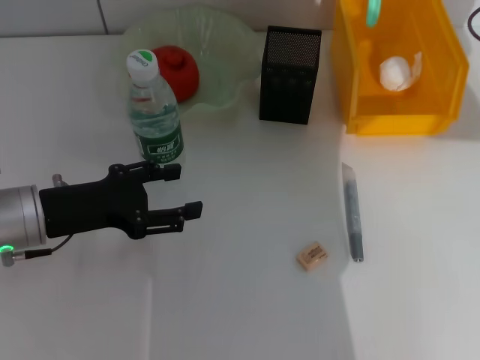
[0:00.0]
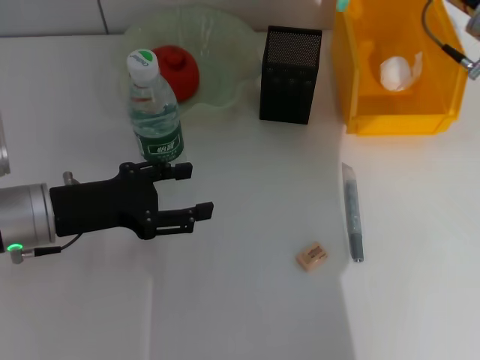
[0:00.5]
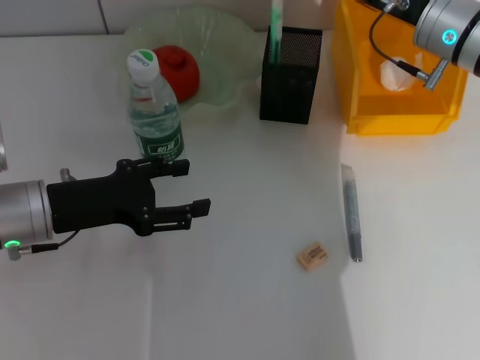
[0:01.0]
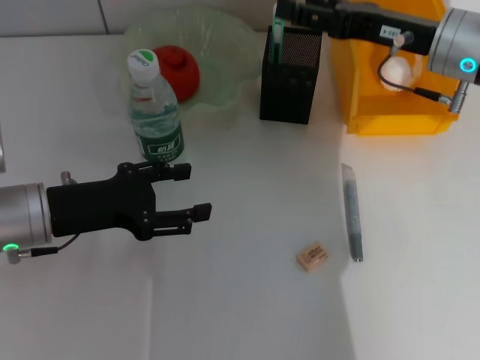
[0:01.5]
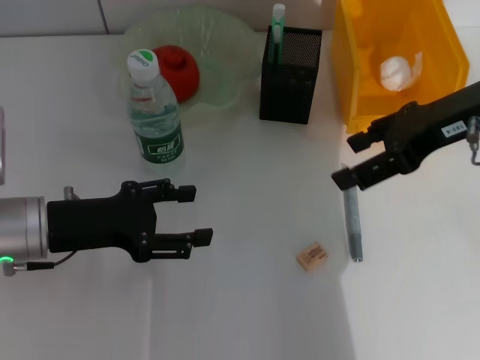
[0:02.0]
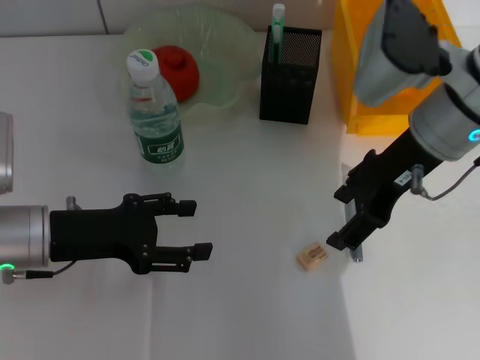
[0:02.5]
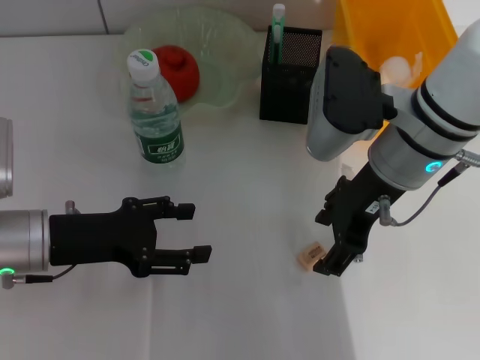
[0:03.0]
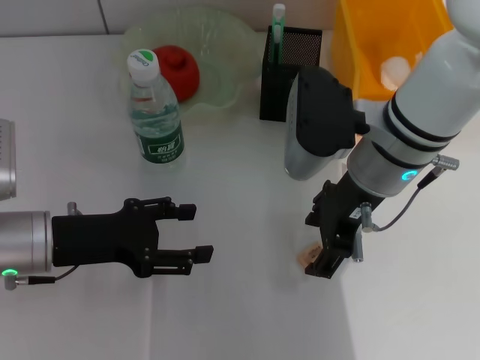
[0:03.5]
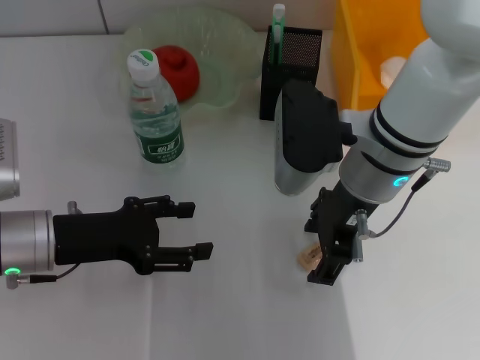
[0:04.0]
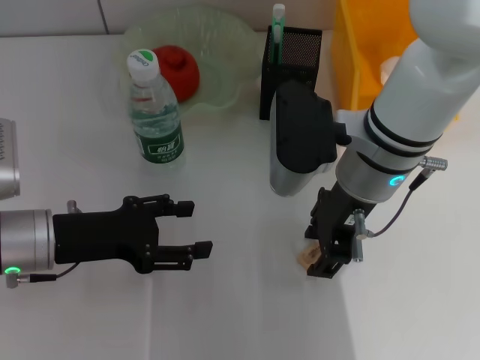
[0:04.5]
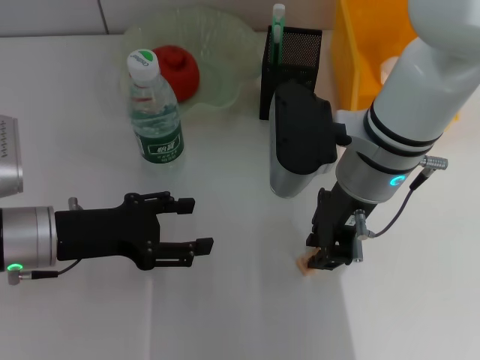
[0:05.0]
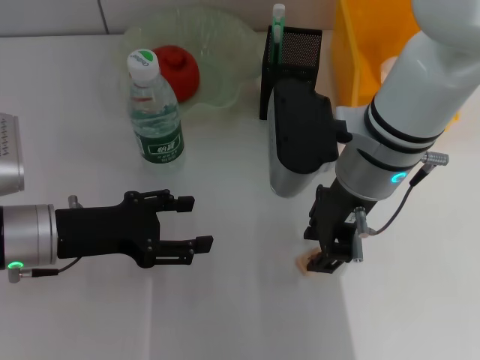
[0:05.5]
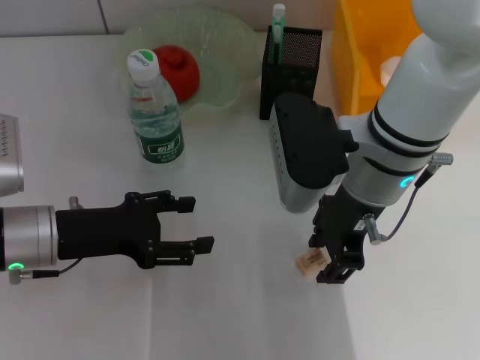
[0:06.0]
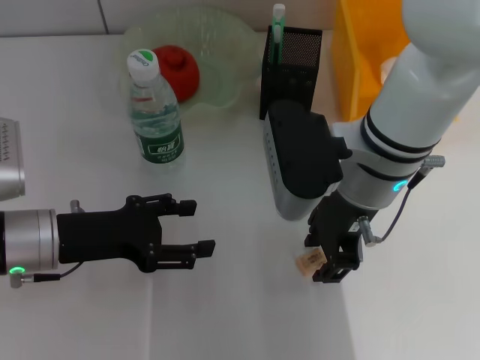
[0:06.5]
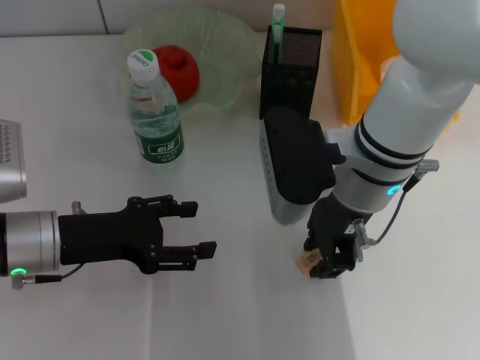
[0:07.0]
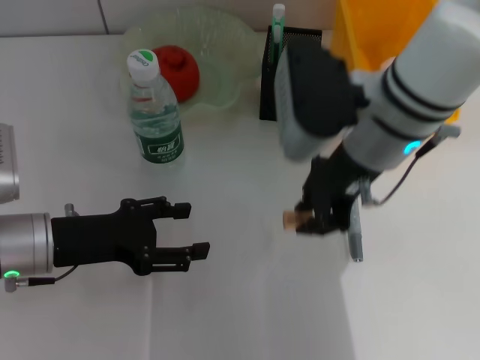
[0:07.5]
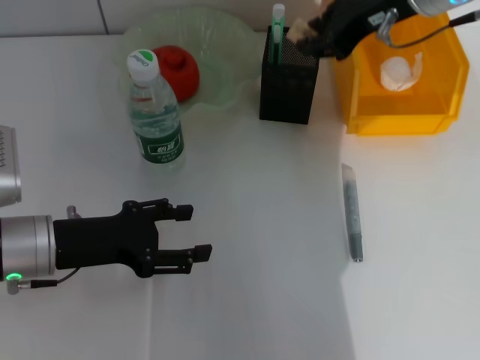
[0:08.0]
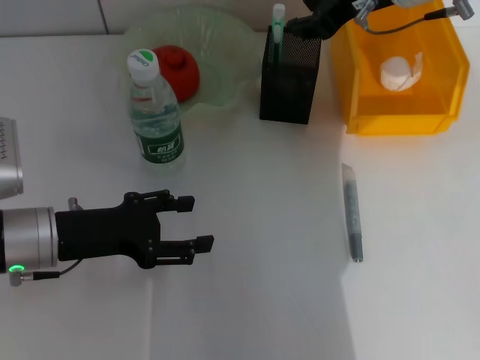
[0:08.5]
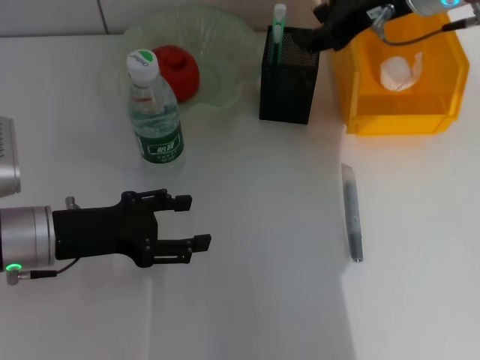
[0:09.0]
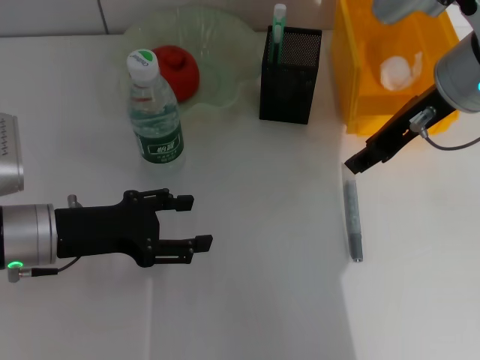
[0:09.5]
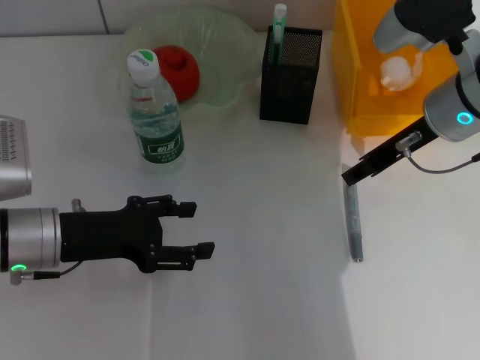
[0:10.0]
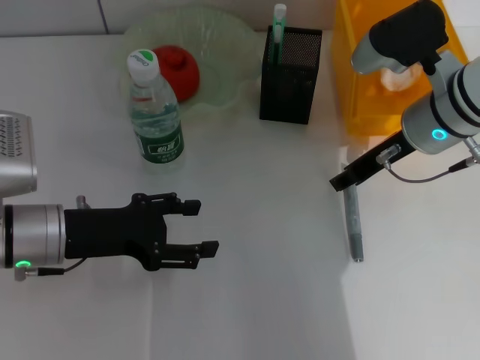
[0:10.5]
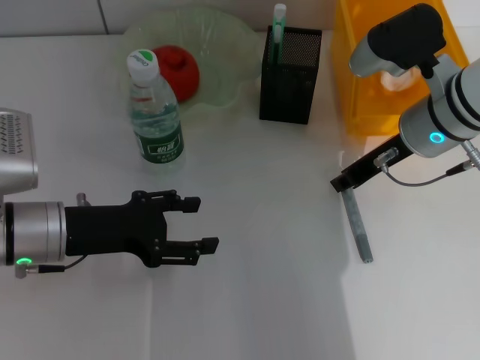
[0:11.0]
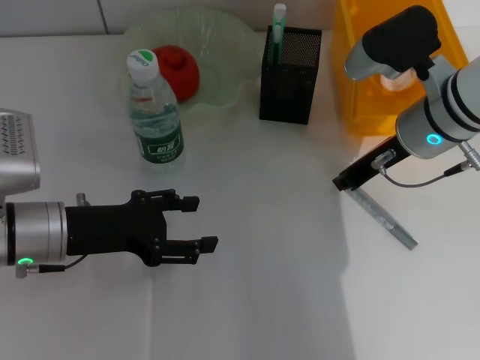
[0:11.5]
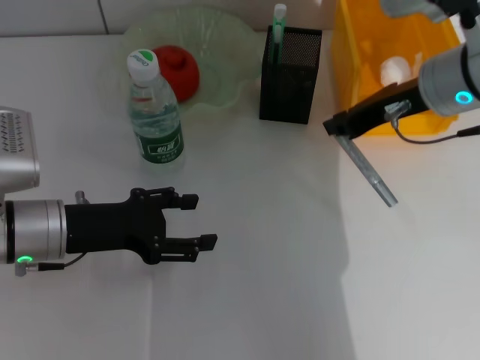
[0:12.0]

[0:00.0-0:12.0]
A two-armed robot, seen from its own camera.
Step, 0:01.5 to 0:06.5: Grab the eraser with the right hand.
Step, 0:07.5 to 0:08.0: Put the eraser into the pen holder with the right hand.
Step, 0:08.5 to 0:11.0: Grab the gray glue with the right hand.
0:00.0 to 0:02.0: The right gripper moves roughly 5 cm forward and comes back, and opens.
0:02.0 to 0:04.0: The right gripper goes some 15 cm to the left and downward.
0:04.0 to 0:06.0: The right gripper closes.
0:06.0 to 0:08.0: The right gripper is displaced upward, forward and to the right by approximately 15 cm.
0:08.0 to 0:10.0: The right gripper travels downward by about 10 cm.
0:10.0 to 0:12.0: The right gripper closes up.

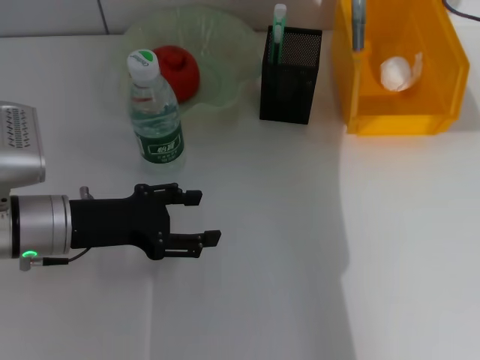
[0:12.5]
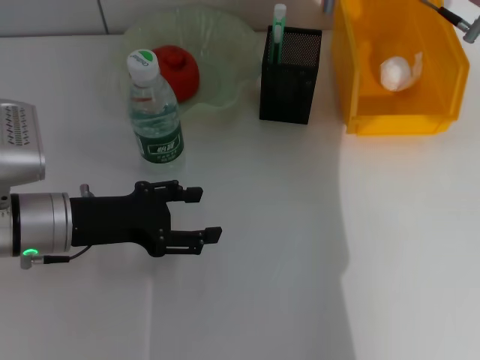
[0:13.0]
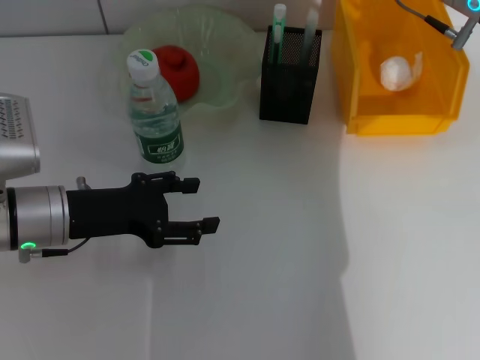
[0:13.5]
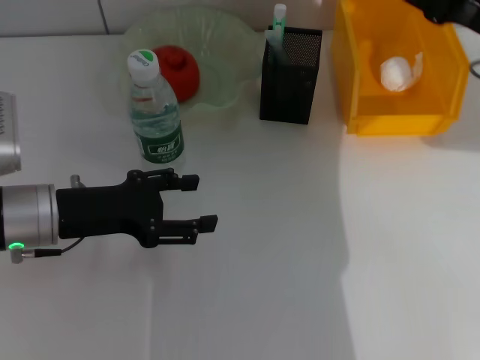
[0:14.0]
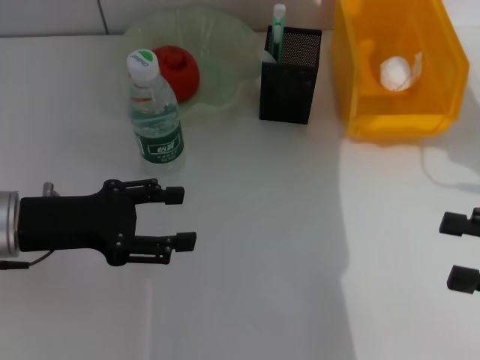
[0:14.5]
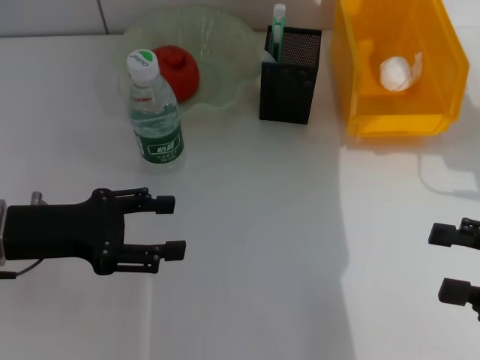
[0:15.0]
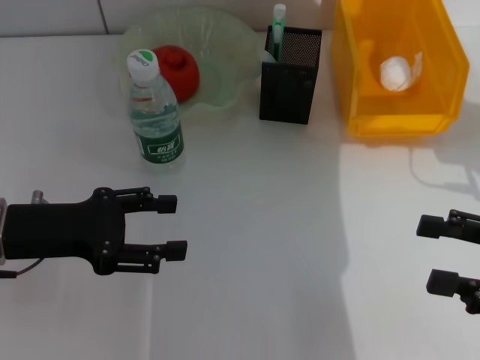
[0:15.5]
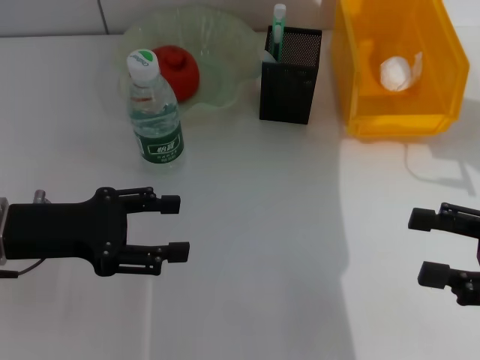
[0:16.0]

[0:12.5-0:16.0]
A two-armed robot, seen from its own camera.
0:12.5 to 0:14.5: The right gripper moves backward, downward and to the right, roughly 25 cm, and opens its fingers.
0:14.5 to 0:16.0: The grippers move only a little.
